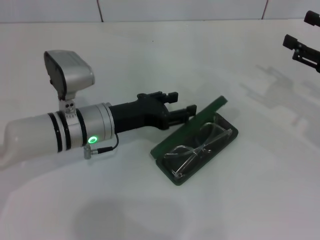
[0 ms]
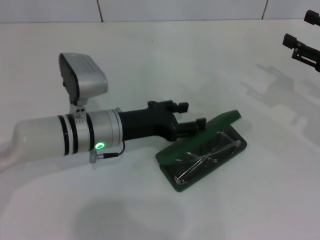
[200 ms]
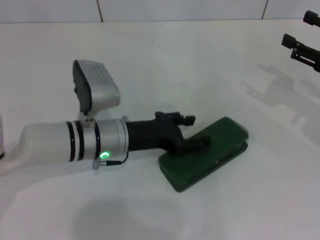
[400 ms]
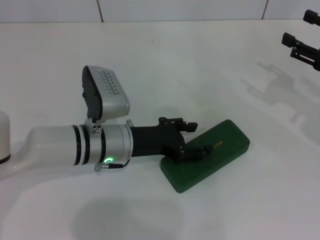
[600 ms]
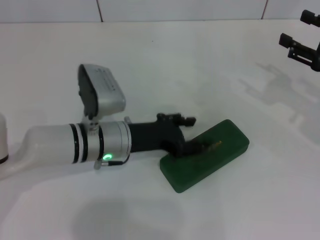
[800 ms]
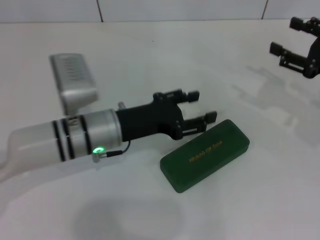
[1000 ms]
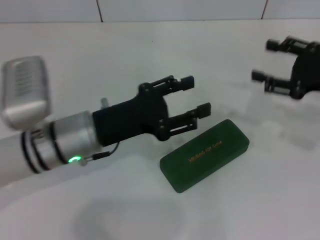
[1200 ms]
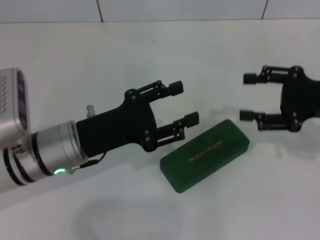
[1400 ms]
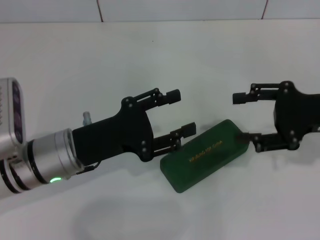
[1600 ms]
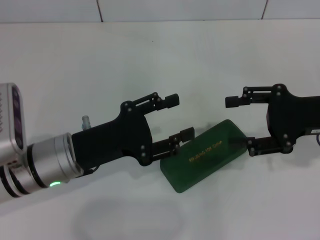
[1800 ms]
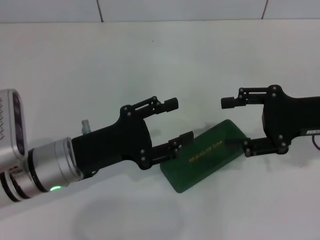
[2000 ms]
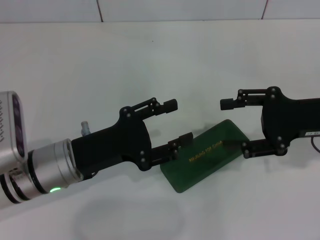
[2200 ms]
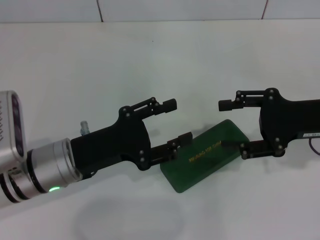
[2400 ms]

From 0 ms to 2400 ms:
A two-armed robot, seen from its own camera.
From 1200 ms to 2400 ms: The right gripper ends up roughly 5 cm from where it was.

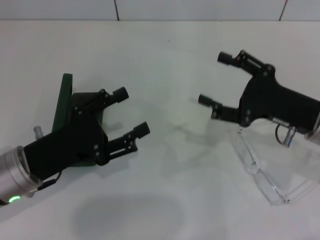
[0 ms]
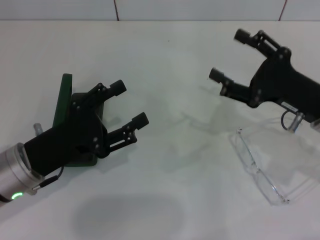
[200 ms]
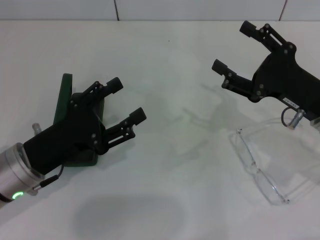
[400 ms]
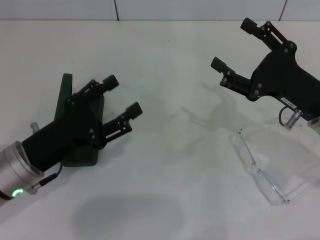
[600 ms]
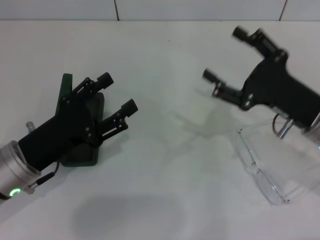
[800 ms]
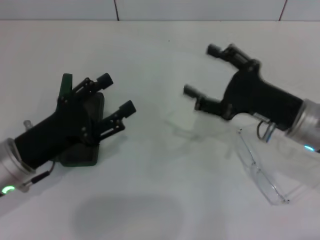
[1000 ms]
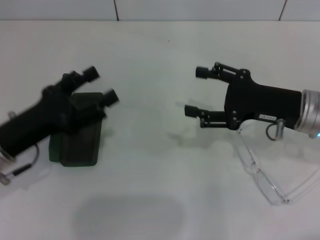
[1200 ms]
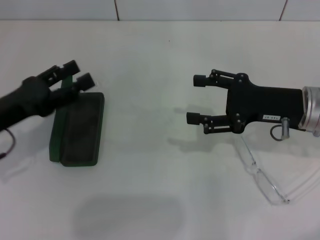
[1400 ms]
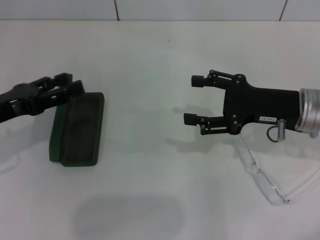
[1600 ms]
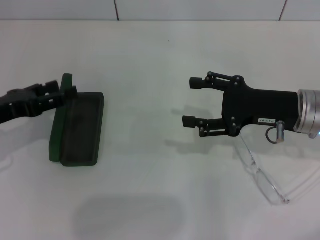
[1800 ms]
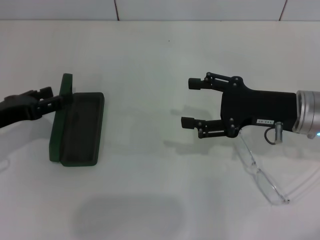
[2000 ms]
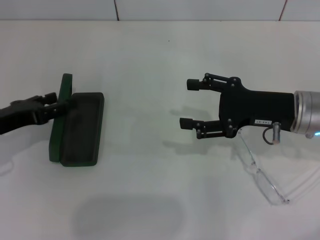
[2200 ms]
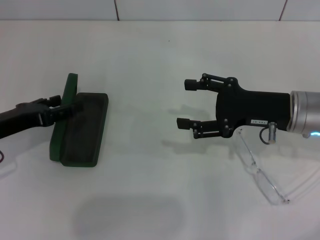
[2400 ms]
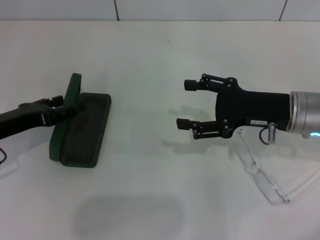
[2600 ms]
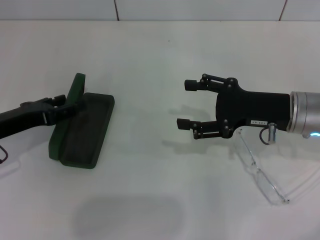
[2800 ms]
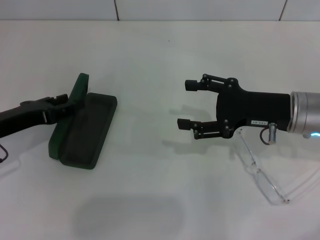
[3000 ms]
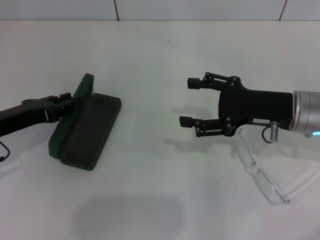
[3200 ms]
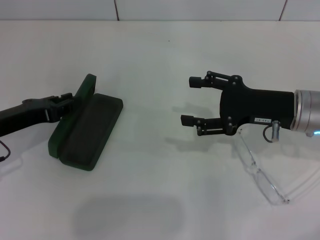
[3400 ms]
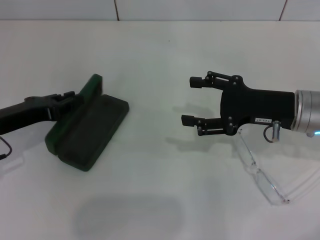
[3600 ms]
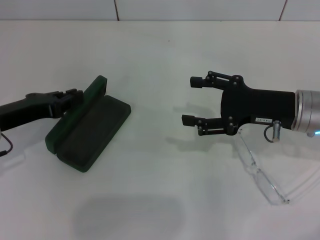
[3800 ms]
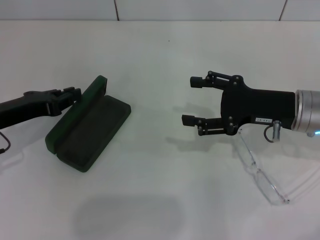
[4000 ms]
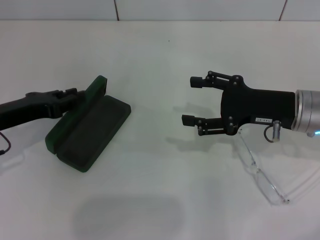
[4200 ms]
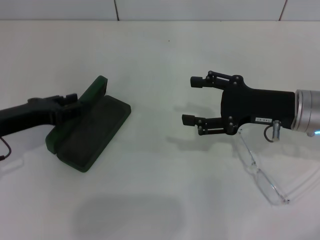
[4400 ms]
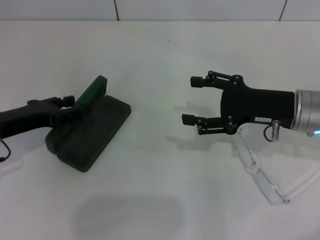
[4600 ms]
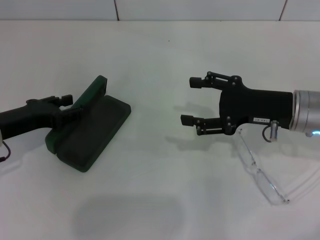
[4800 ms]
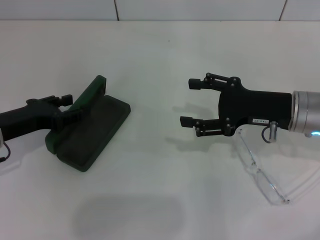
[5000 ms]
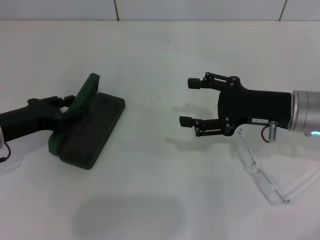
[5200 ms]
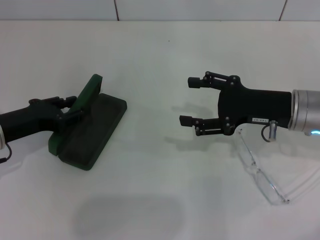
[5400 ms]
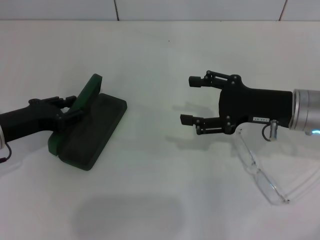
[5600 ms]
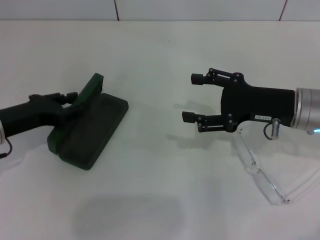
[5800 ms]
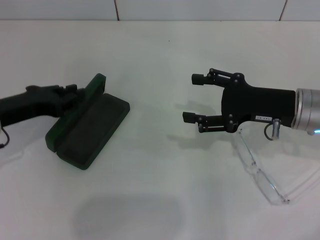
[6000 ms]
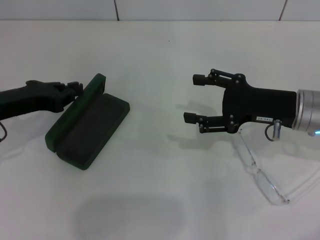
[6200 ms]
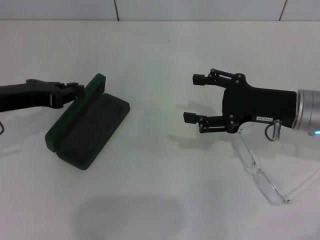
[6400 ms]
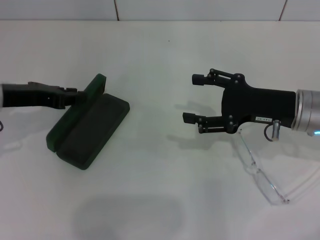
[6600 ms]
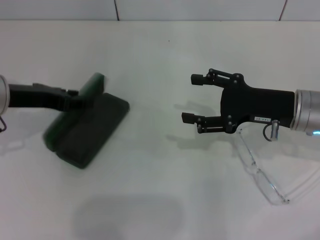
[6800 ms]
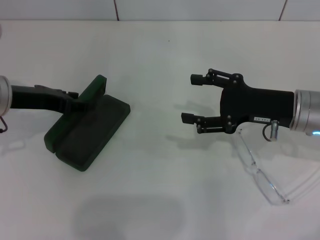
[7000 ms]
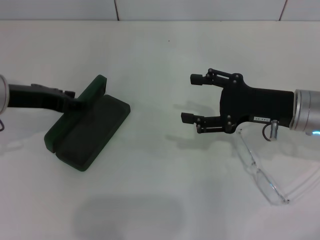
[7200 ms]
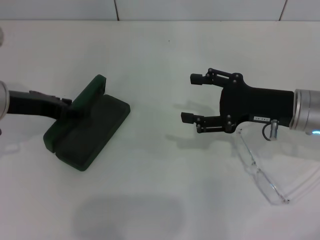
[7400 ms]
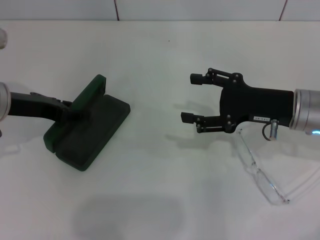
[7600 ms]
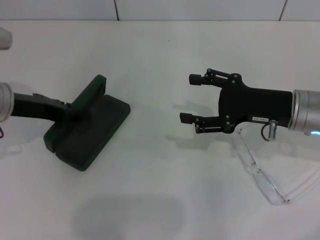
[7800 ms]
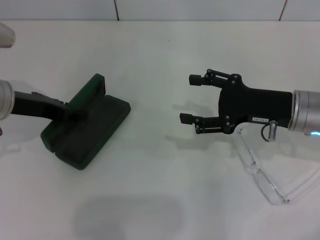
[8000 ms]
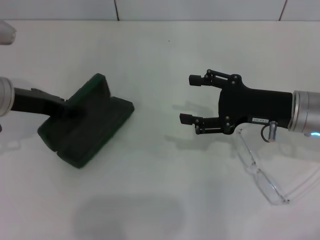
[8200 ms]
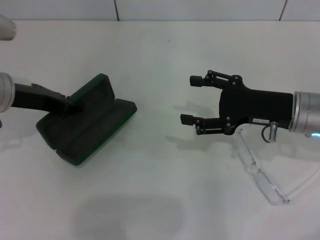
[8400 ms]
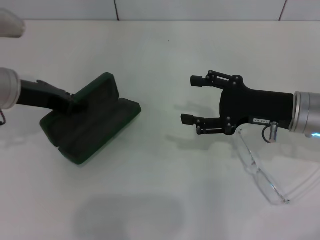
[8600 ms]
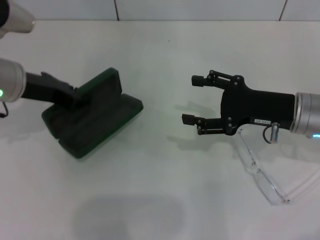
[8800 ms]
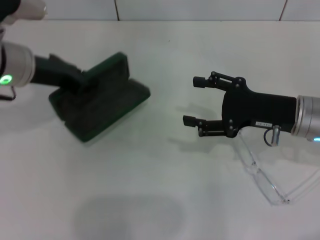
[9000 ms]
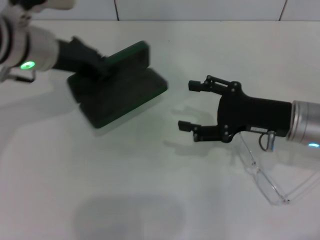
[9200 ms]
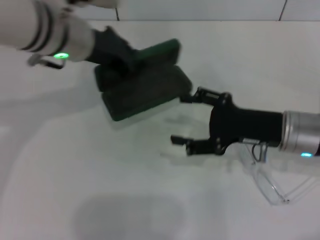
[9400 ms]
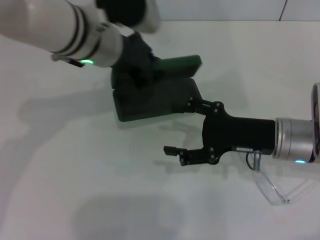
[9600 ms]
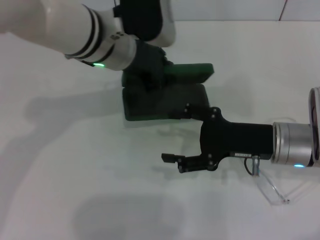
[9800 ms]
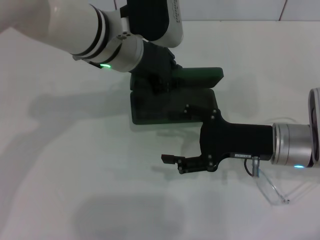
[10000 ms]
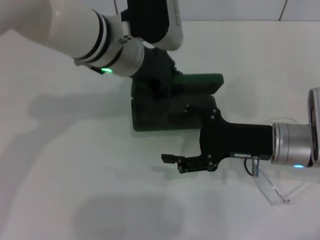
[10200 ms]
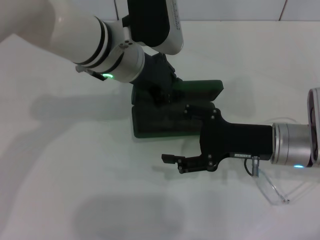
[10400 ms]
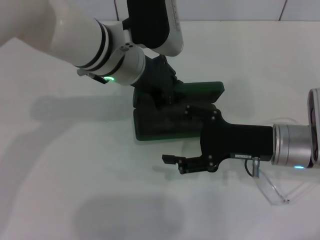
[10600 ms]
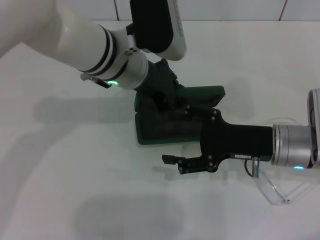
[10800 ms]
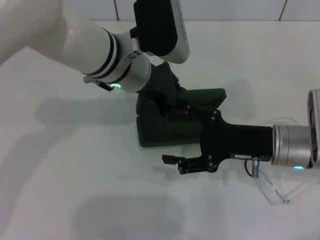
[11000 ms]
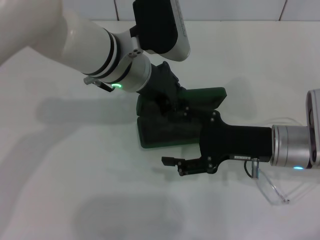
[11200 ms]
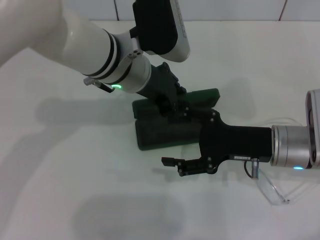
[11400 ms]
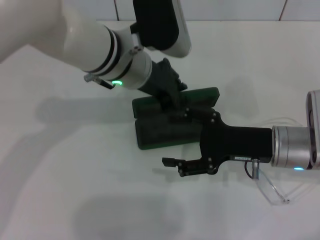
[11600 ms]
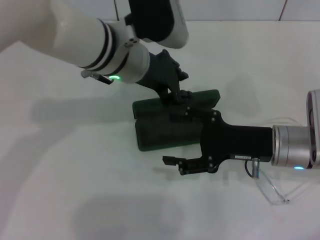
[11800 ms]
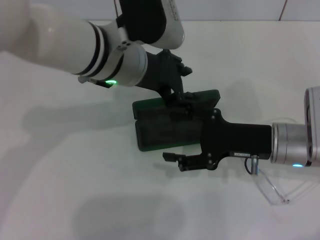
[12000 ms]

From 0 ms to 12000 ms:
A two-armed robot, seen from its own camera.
Step, from 0 ms to 8000 ms: Grab the glasses case with your left hand.
Step, from 8200 ms to 11800 ms: Place the glasses case in the center of the table with your left hand.
From 0 ms to 1600 ms: The left gripper heads to the left, covering some 10 cm.
From 3000 ms to 4400 ms: The left gripper closes up.
From 4400 ms to 6000 ms: The left gripper opens, then closes again.
From 6000 ms to 7600 ms: The left gripper shifts by some 5 cm, and opens up.
From 7600 ms to 9000 ms: The left gripper shifts by approximately 5 cm, and closes.
From 9000 ms to 10400 ms: The left gripper shifts some 15 cm to the right.
From 10400 ms to 12000 ms: There are only small adjustments of the grippers.

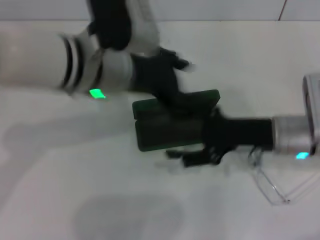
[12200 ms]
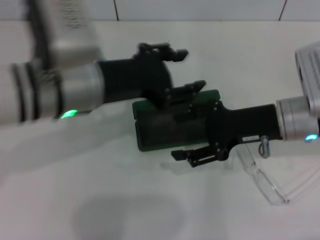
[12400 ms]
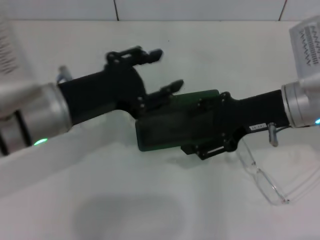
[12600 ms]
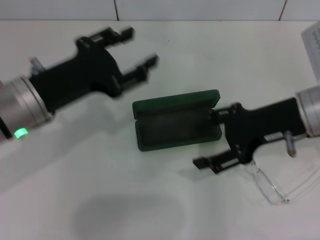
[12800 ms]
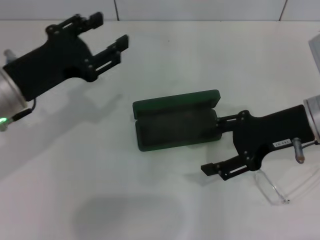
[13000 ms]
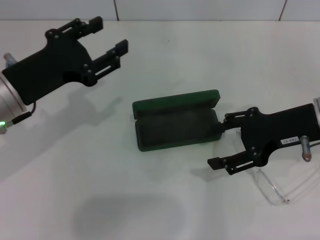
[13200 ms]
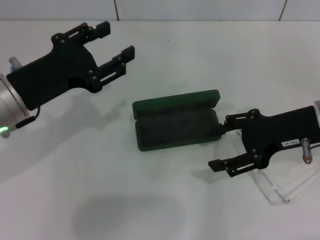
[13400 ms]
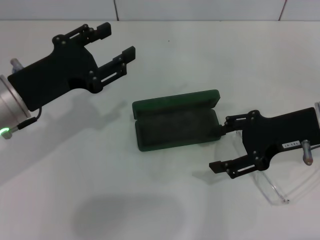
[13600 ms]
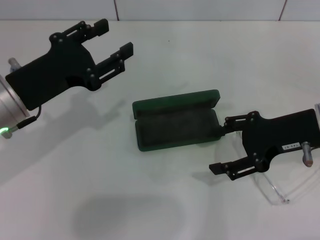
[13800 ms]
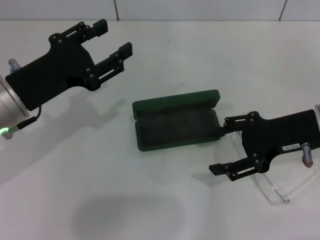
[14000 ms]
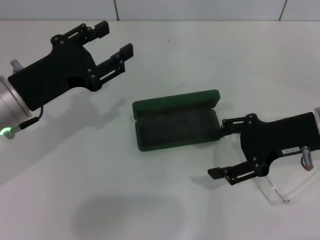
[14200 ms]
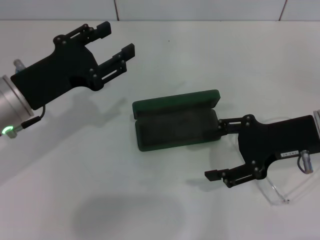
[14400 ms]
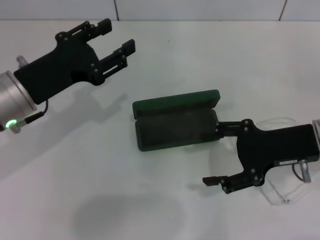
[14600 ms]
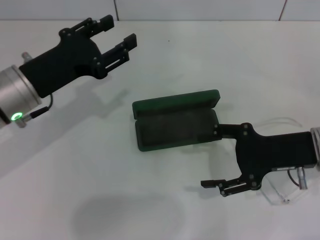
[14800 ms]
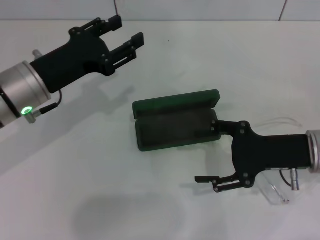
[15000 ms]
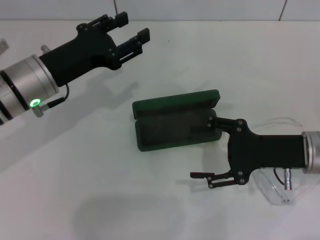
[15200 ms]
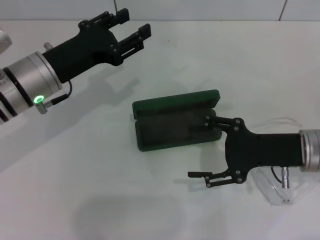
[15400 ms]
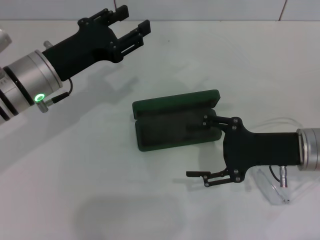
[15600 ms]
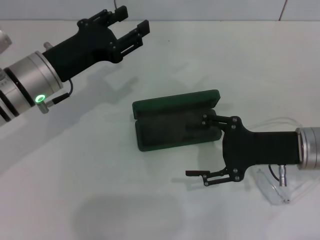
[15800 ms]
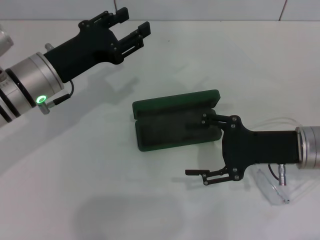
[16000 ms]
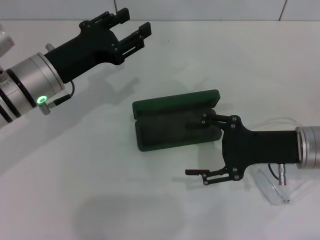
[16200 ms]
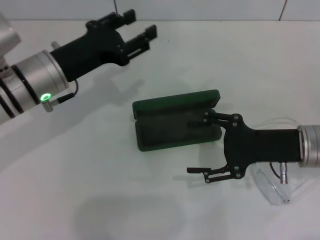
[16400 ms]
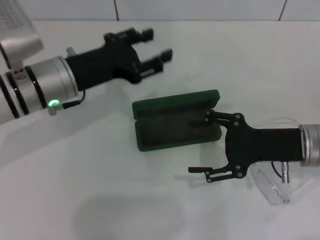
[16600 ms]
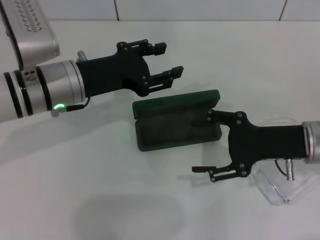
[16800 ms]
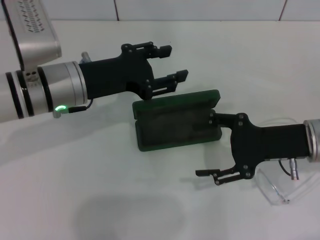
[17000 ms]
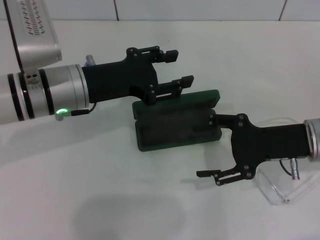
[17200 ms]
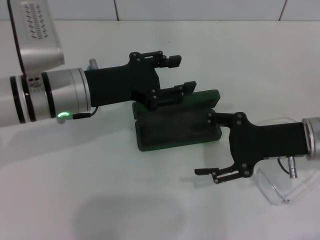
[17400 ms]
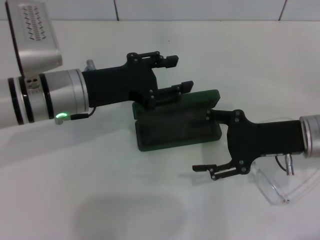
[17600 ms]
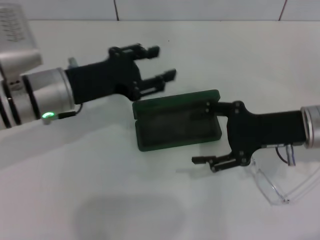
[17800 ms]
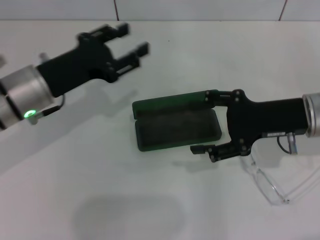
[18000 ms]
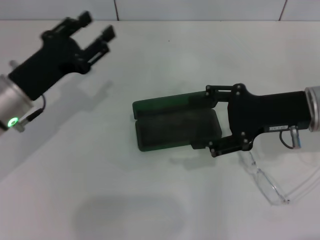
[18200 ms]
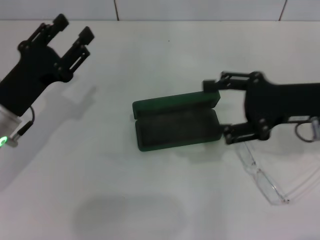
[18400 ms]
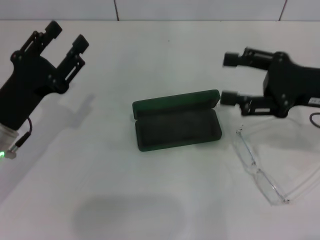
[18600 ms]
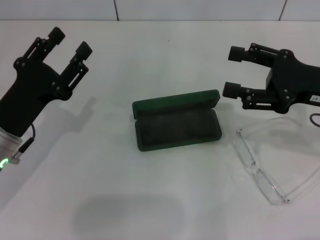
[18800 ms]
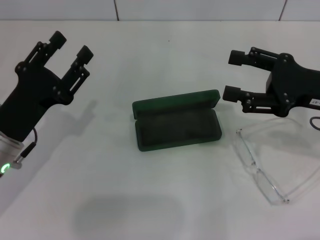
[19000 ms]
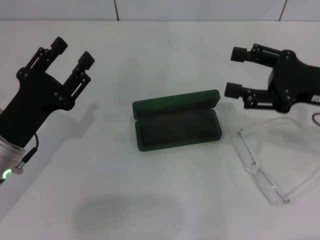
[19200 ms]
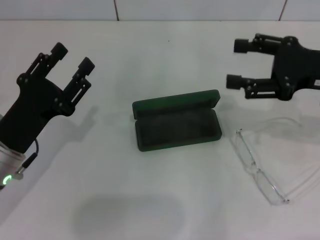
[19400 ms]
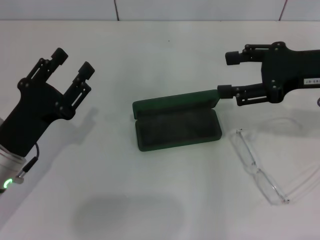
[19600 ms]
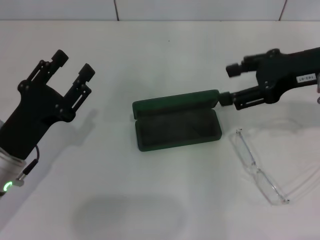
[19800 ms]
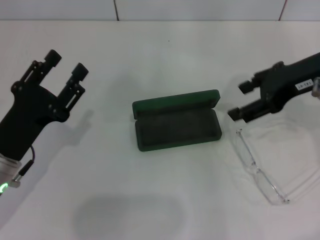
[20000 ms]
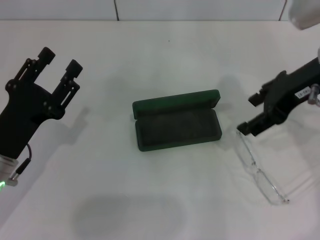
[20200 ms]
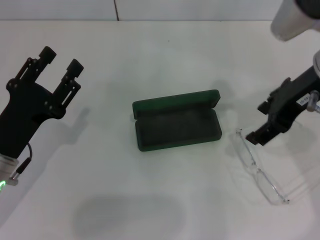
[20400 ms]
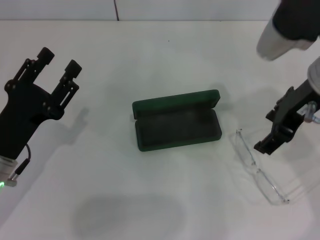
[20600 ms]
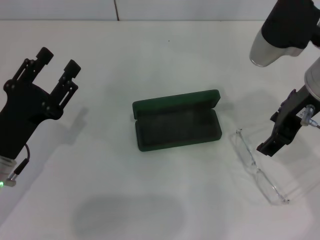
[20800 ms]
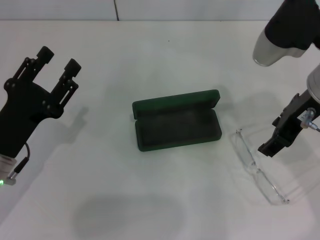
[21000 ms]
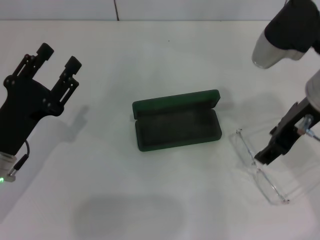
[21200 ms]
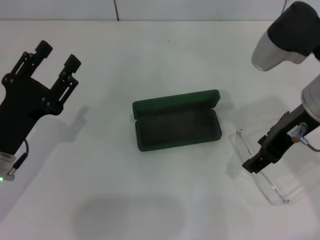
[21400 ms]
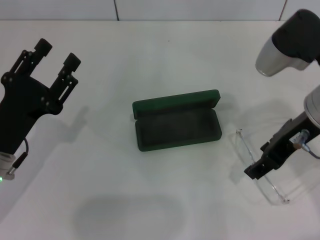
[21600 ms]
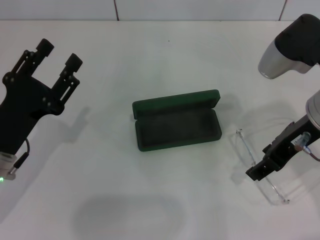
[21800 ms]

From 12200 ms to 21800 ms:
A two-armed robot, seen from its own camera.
From 12200 ms to 13800 ms: The right gripper is displaced upward by about 5 cm. Meanwhile the left gripper moves to the left, some 15 cm.
From 13800 ms to 15400 ms: The left gripper heads forward, covering some 5 cm. Meanwhile the right gripper travels downward by some 5 cm.
From 17000 ms to 18600 ms: The left gripper is displaced to the left, backward and downward by approximately 10 cm, while the right gripper heads upward, covering about 5 cm.
From 18600 ms to 20200 ms: The right gripper shifts roughly 10 cm upward and to the left.
From 20200 ms to 21800 ms: The right gripper shifts by some 5 cm.
